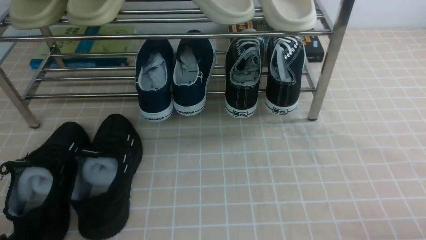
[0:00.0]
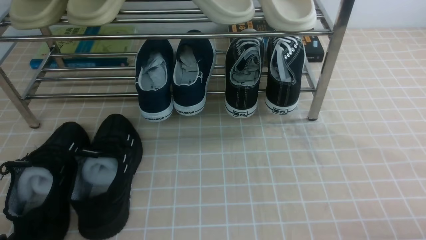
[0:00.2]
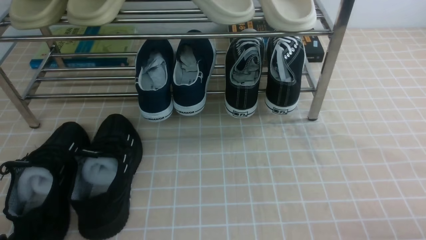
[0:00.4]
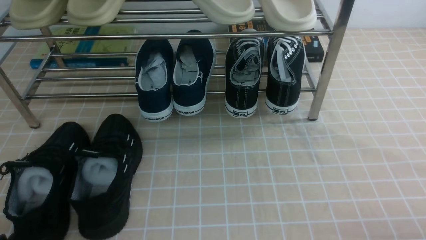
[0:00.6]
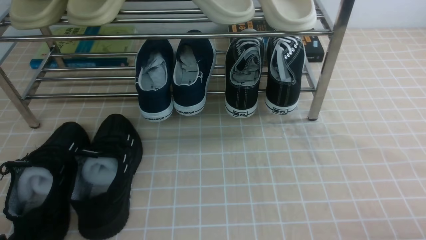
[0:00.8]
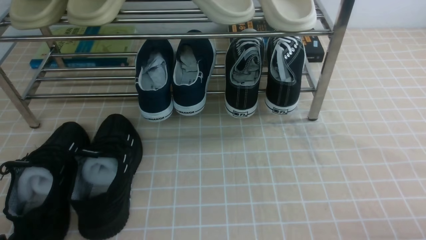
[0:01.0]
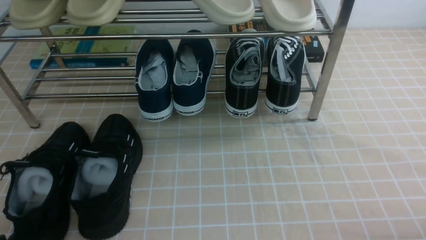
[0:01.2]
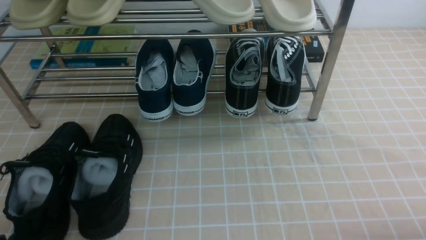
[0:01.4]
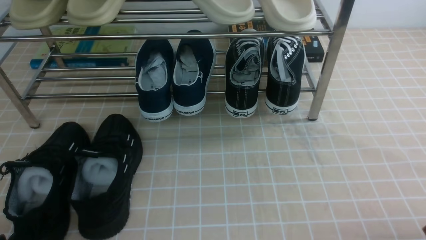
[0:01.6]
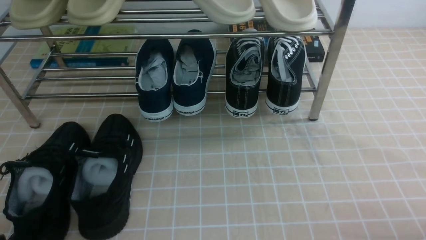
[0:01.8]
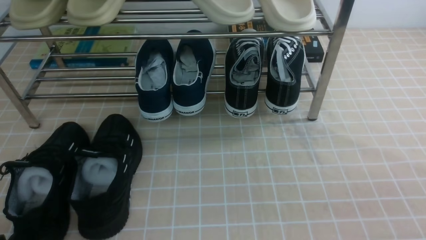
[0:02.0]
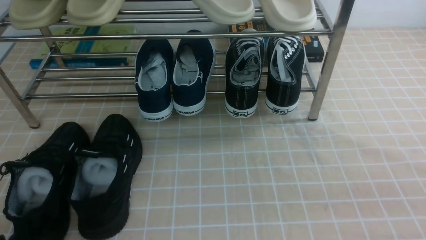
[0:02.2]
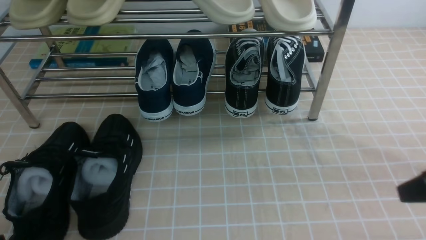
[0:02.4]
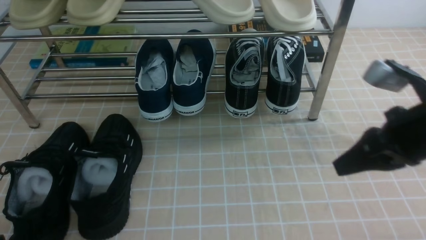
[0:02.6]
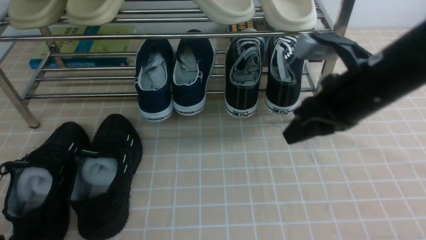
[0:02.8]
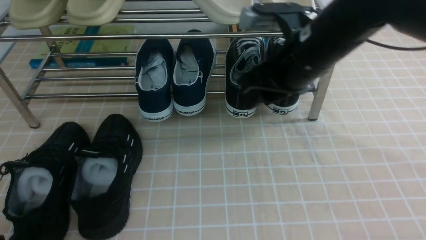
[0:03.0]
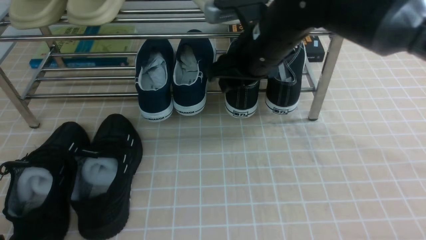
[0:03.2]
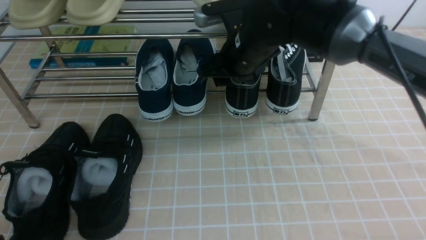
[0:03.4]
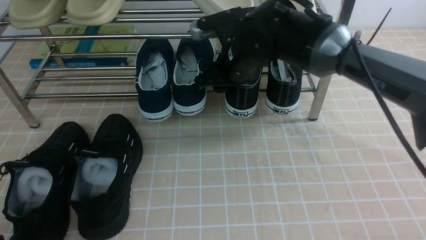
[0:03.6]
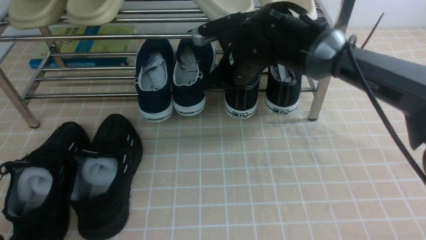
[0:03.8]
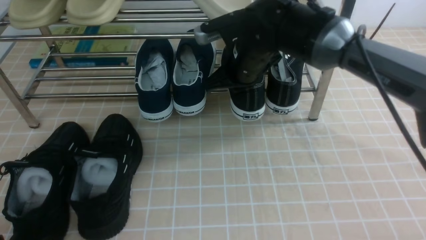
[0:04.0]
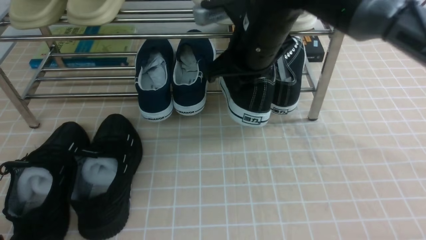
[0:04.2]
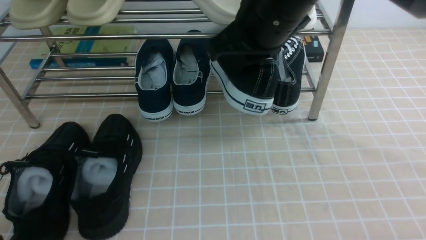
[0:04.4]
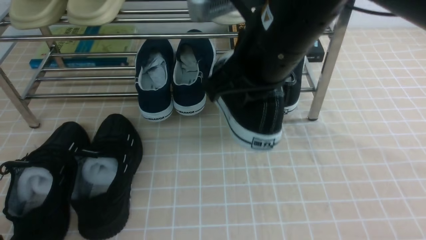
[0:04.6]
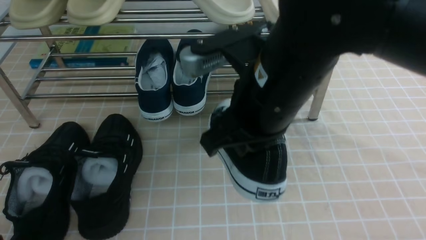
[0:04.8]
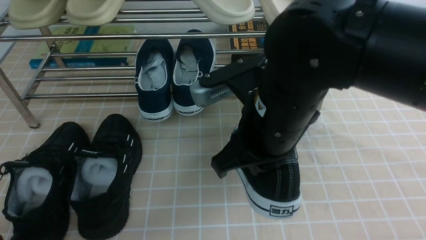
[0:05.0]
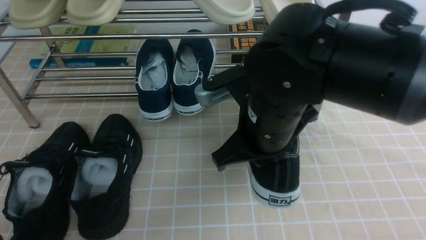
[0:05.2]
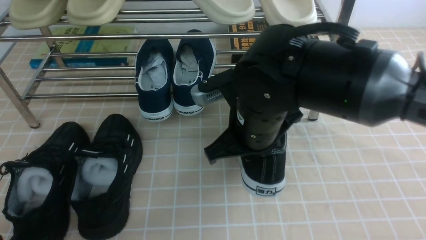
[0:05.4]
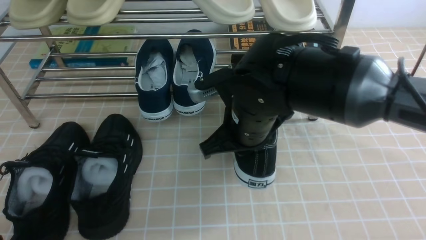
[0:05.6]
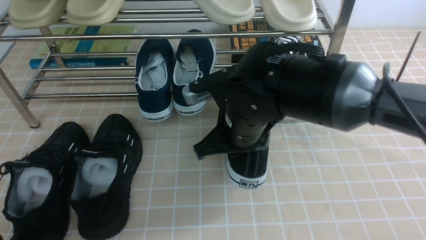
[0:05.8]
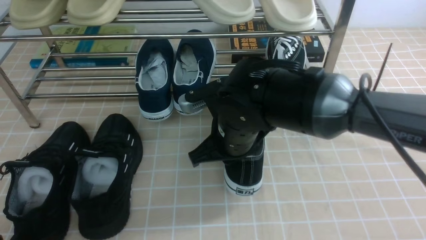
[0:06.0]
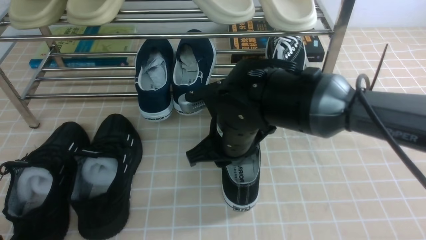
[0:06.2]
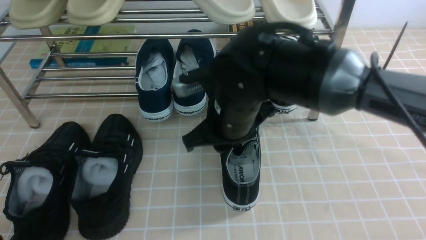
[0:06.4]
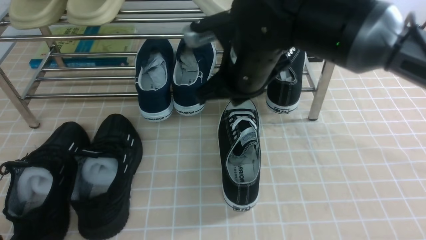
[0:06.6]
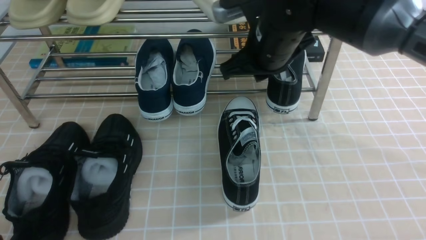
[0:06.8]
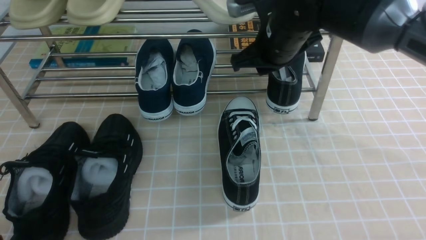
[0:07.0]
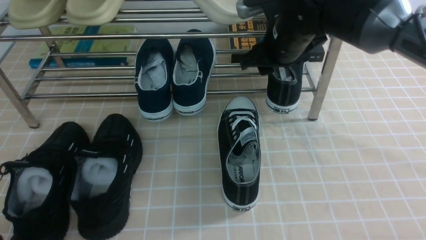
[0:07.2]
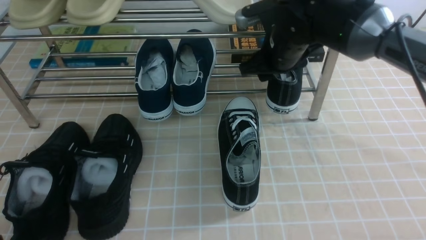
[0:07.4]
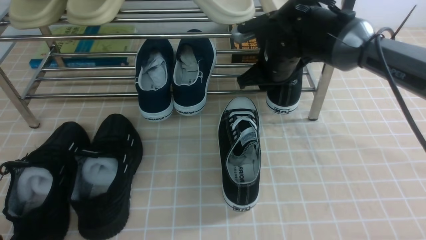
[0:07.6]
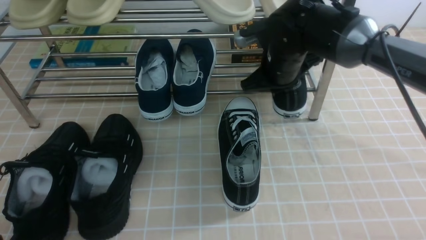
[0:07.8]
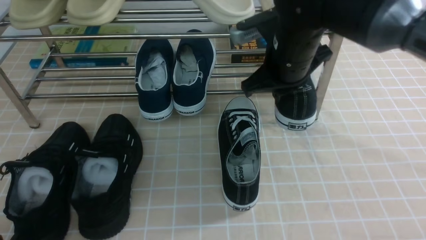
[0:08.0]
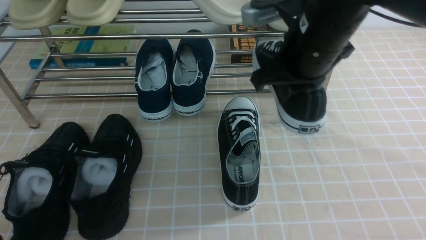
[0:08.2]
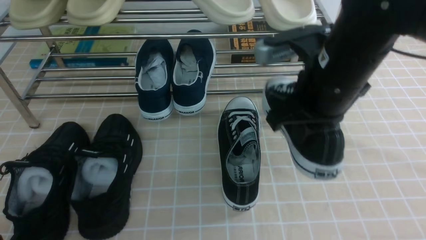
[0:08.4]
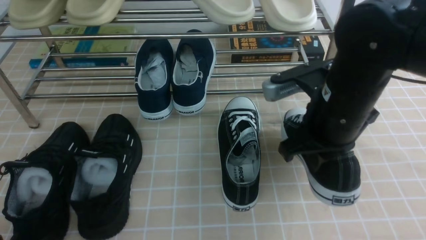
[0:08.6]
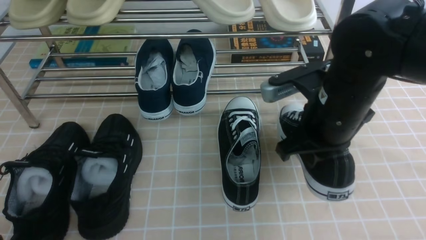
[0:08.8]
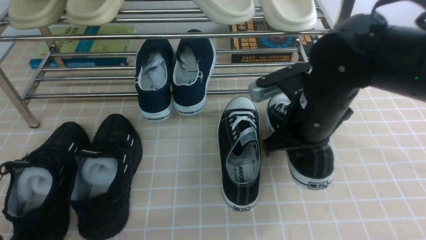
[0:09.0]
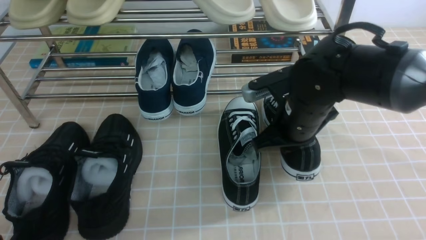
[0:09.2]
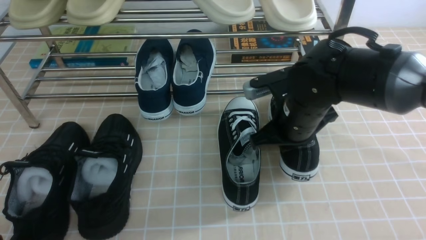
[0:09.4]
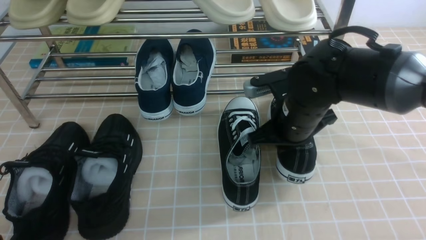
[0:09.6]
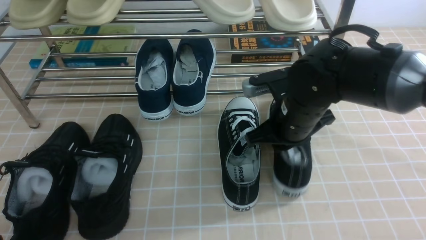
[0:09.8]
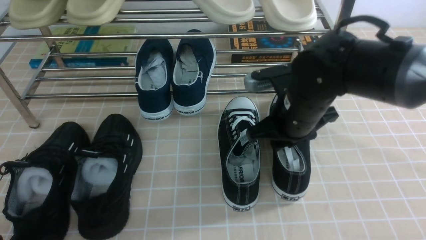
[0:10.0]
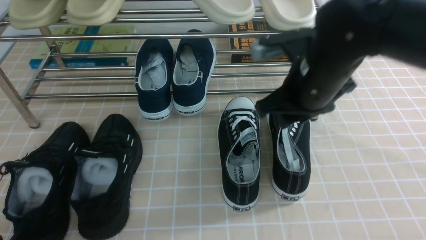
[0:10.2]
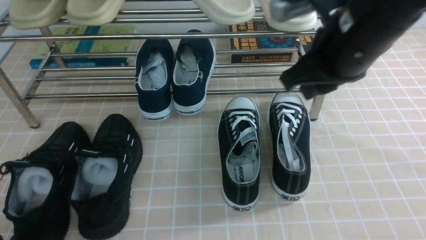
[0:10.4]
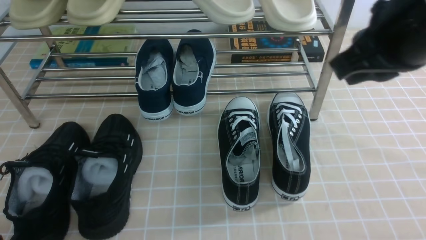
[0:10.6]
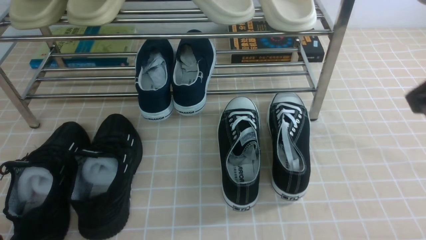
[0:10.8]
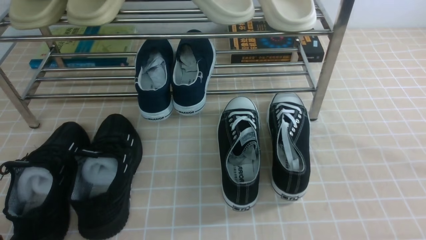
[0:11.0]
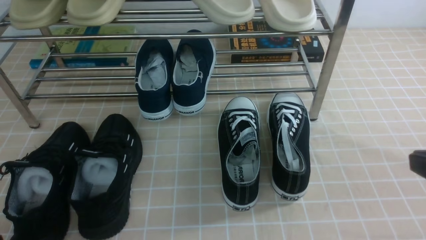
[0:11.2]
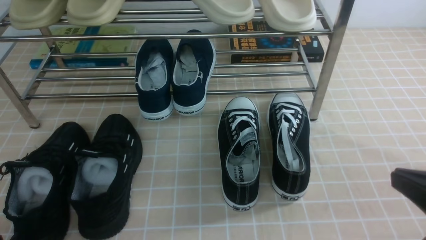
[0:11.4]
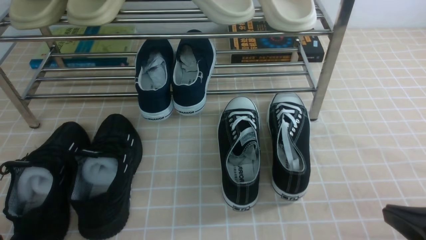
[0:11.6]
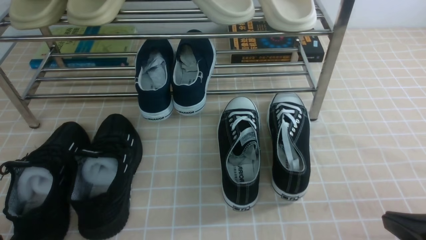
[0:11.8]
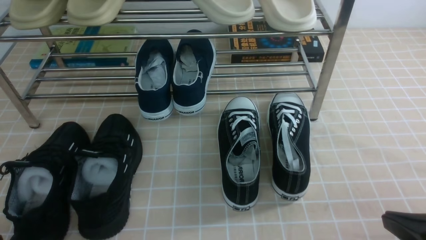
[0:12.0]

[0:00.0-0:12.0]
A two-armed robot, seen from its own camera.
Step, 0:00.0 to 0:03.8: use the right arm to clamp a shoe on the right side of the shoe rack.
Step, 0:04.0 to 0:06.4: use the right arm to take out the clamped shoe from the shoe rack and put it down.
Step, 0:06.6 to 0:07.8: use the right arm to clamp a shoe on the right side of the shoe rack.
Step, 0:08.0 to 0:10.0: use the right arm to take out the clamped shoe from the shoe rack and put it down.
0:01.6 to 0:03.0: The right gripper is displaced forward, to the left and upward by approximately 35 cm, and closes, then opens again.
0:03.0 to 0:04.4: The right gripper travels to the left by approximately 10 cm, and closes up.
0:04.4 to 0:06.0: The right gripper is displaced downward by approximately 15 cm.
0:06.0 to 0:07.6: The right gripper goes approximately 15 cm forward and to the right, and opens.
0:07.6 to 0:09.0: The right gripper moves backward, about 15 cm, and closes up.
0:09.0 to 0:10.4: The right gripper travels upward by approximately 10 cm, and opens.
0:10.4 to 0:12.0: The right gripper goes approximately 25 cm backward, to the right and downward, and closes.

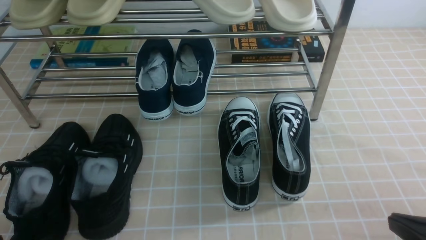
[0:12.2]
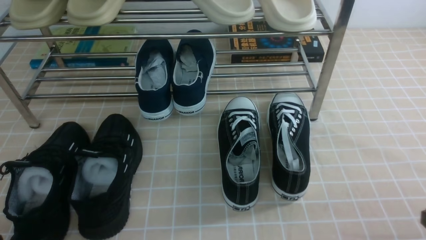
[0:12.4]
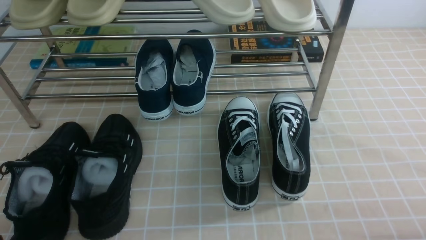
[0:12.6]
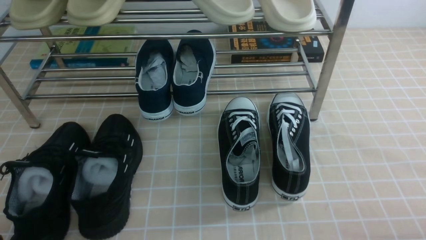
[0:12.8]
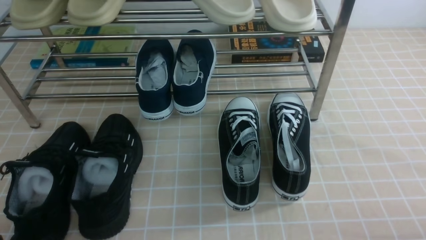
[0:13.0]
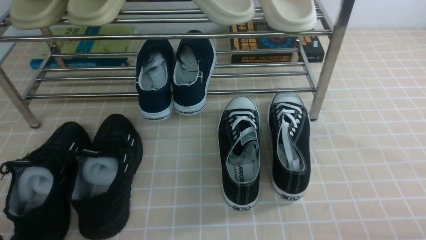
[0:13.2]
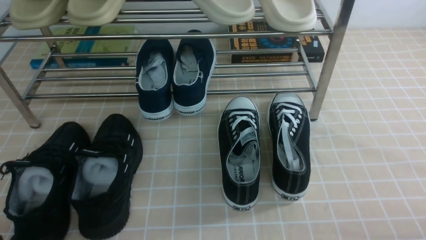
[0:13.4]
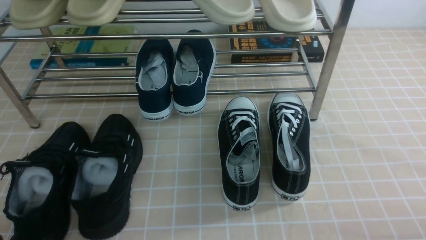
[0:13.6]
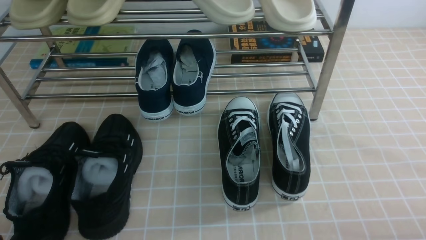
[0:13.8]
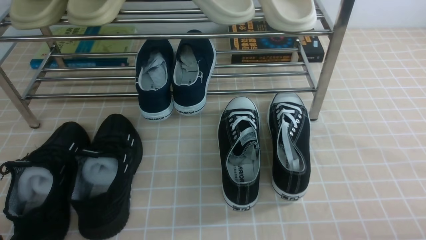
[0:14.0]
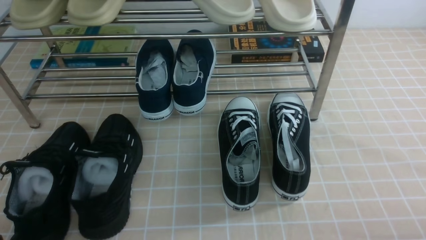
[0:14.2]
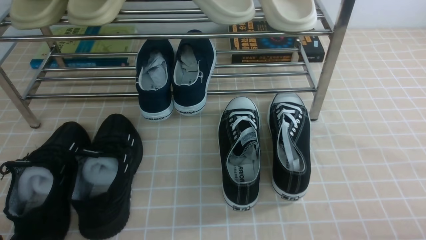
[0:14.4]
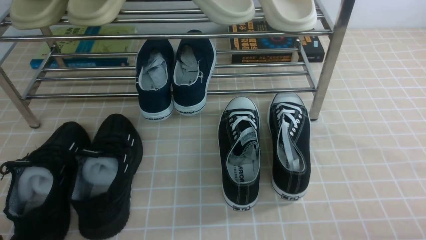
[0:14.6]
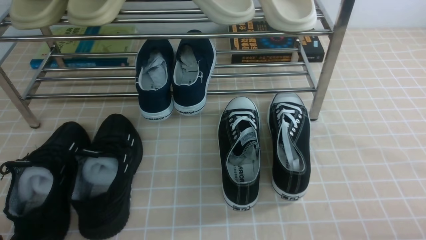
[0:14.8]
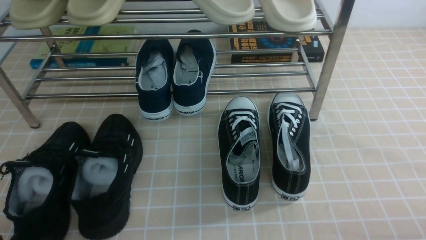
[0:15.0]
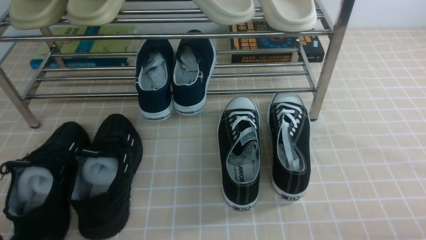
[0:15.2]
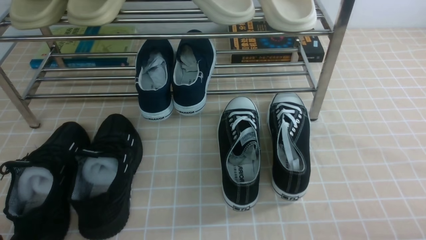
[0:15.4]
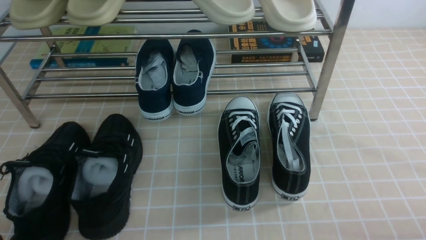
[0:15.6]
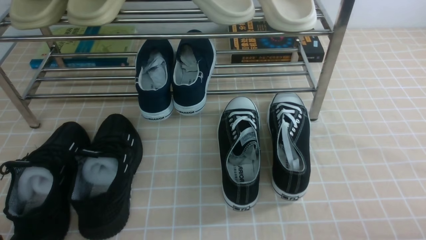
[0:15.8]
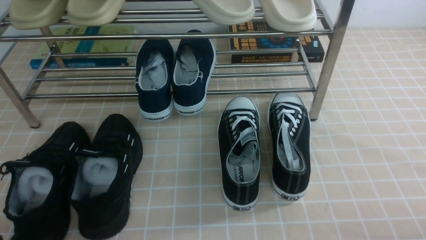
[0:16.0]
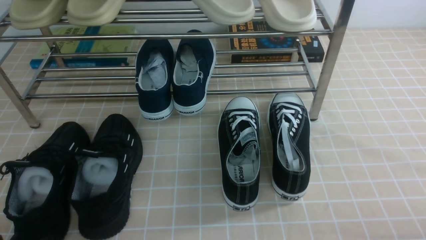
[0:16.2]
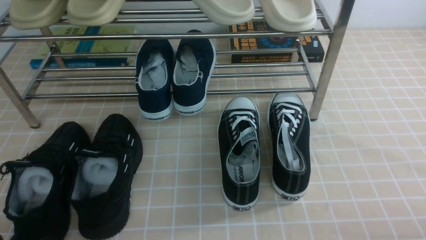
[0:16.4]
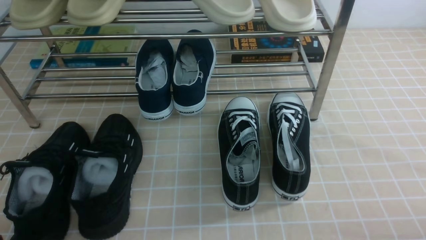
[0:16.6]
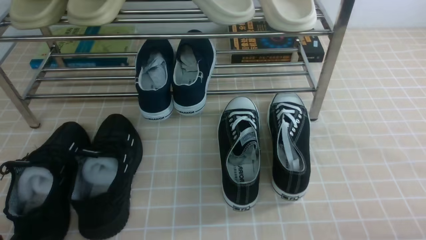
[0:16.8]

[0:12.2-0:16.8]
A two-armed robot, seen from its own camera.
0:12.2 to 0:13.8: The right gripper ends up about 5 cm from where it was.
0:13.8 to 0:16.8: Both grippers stay put.
